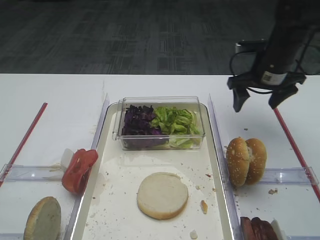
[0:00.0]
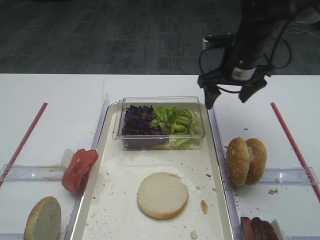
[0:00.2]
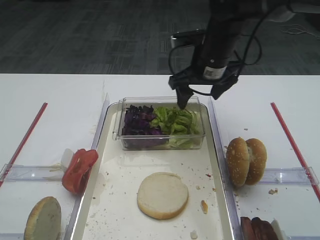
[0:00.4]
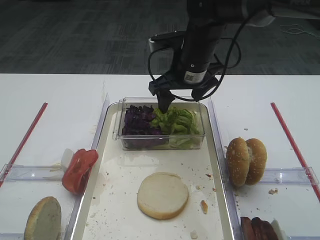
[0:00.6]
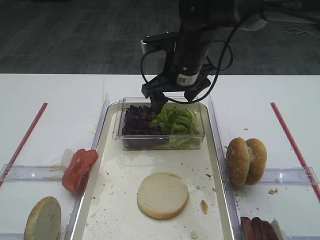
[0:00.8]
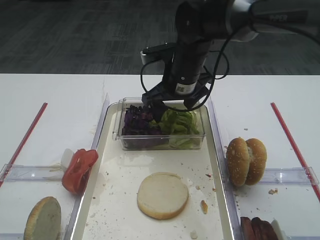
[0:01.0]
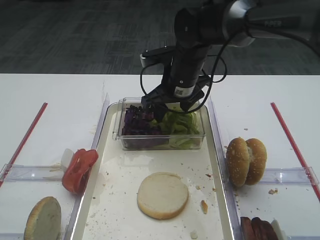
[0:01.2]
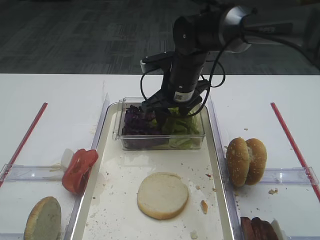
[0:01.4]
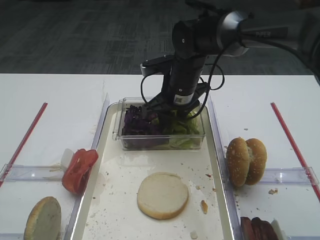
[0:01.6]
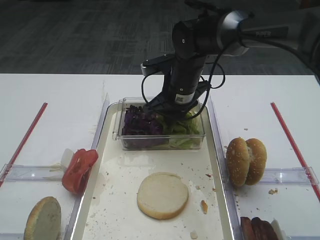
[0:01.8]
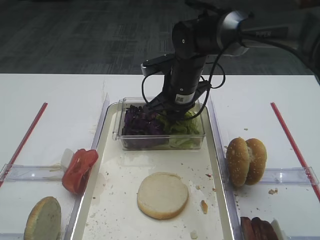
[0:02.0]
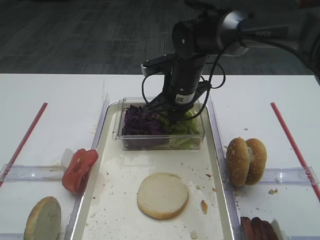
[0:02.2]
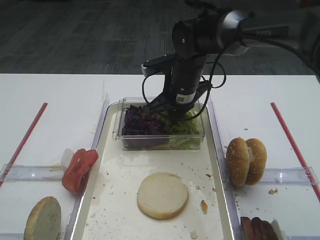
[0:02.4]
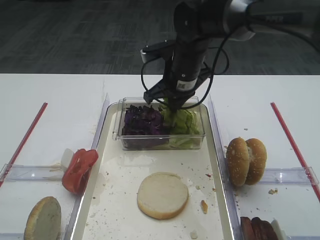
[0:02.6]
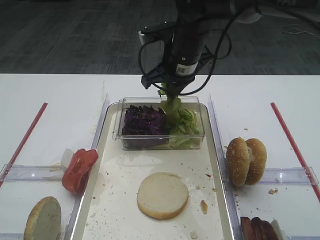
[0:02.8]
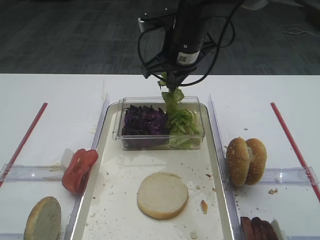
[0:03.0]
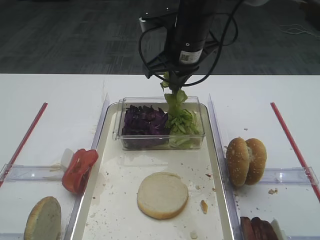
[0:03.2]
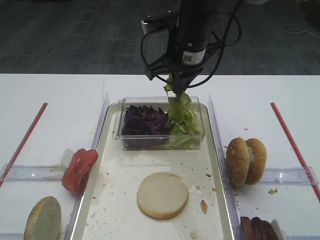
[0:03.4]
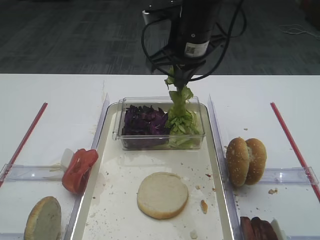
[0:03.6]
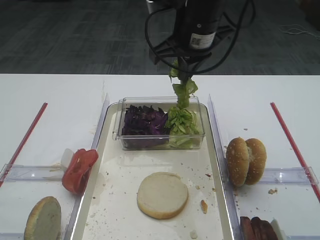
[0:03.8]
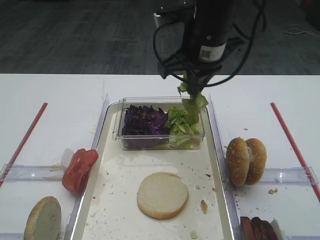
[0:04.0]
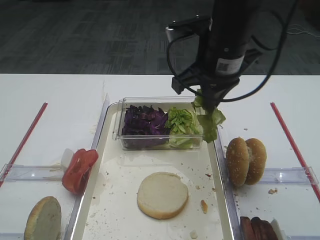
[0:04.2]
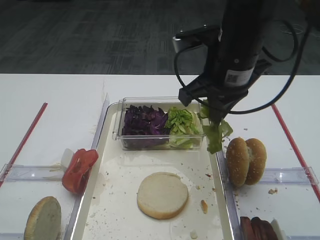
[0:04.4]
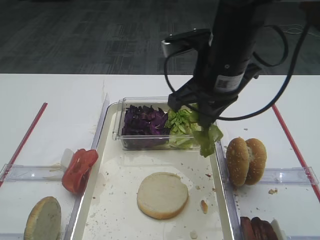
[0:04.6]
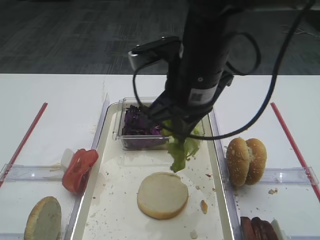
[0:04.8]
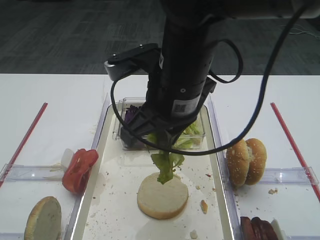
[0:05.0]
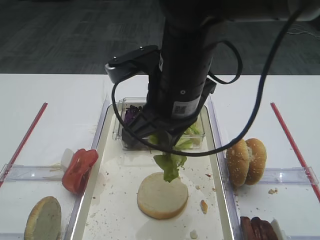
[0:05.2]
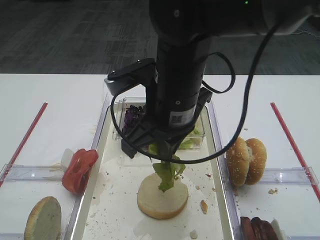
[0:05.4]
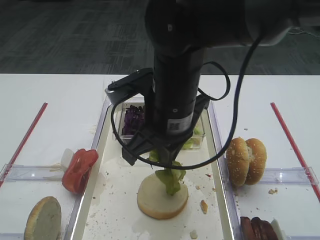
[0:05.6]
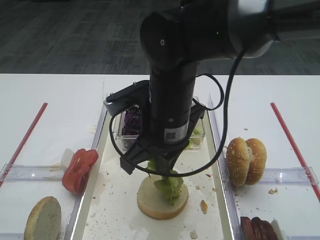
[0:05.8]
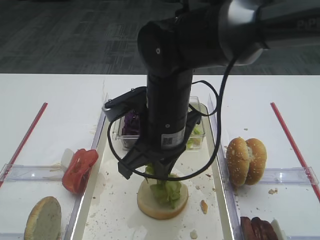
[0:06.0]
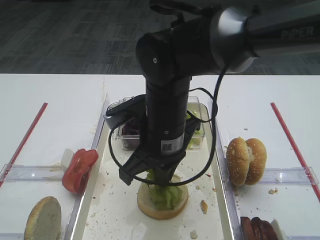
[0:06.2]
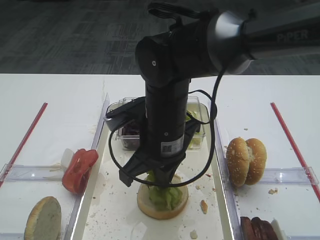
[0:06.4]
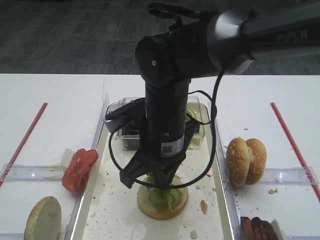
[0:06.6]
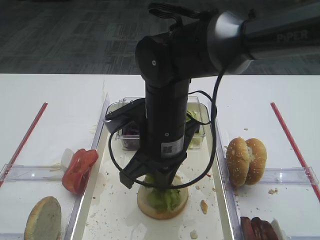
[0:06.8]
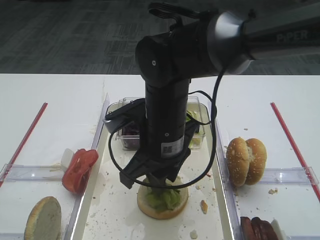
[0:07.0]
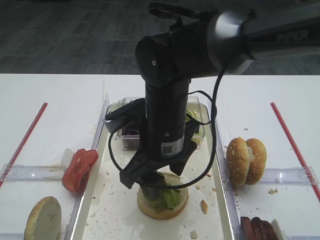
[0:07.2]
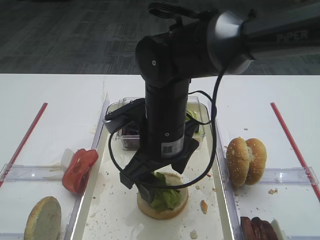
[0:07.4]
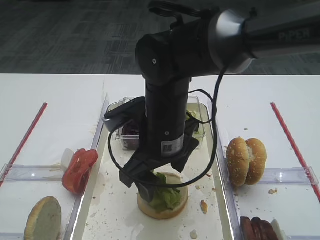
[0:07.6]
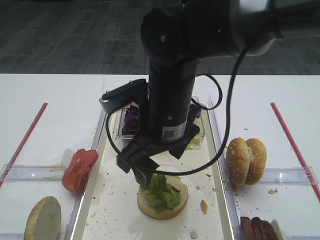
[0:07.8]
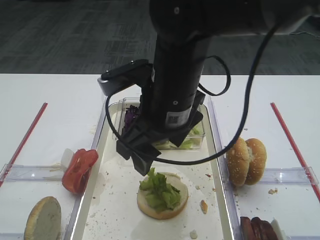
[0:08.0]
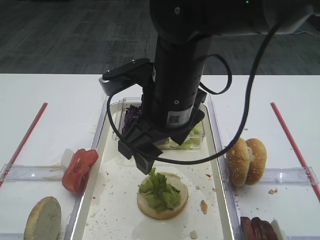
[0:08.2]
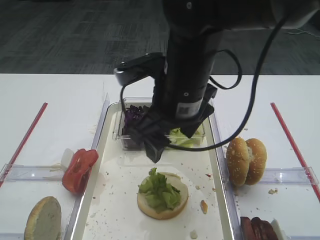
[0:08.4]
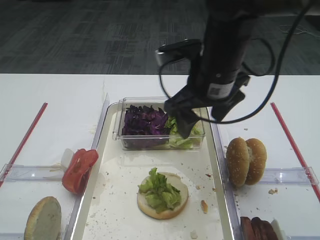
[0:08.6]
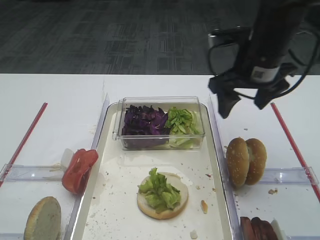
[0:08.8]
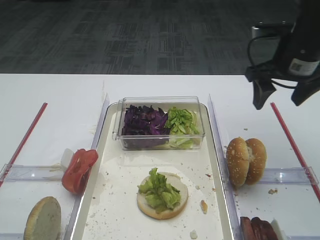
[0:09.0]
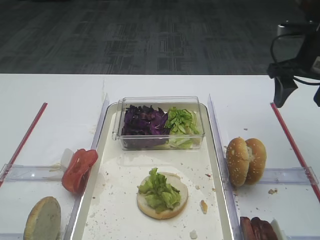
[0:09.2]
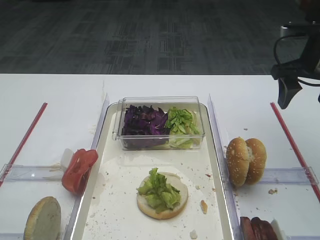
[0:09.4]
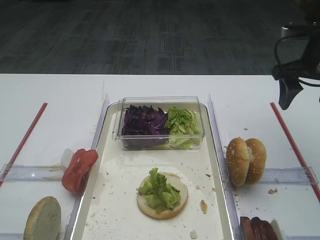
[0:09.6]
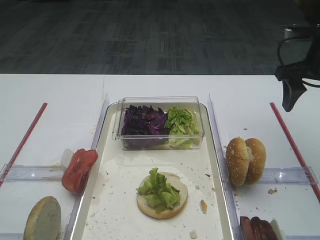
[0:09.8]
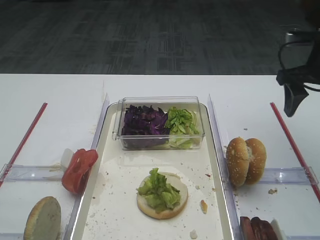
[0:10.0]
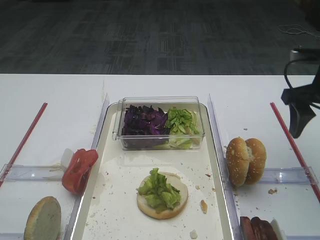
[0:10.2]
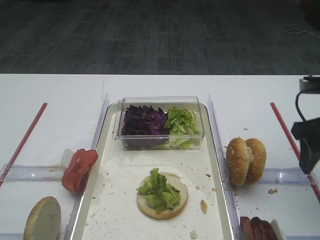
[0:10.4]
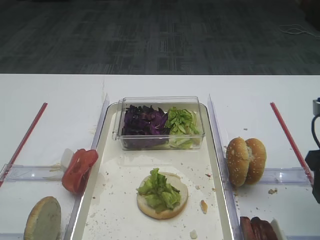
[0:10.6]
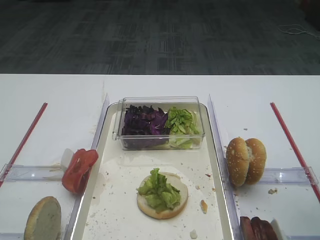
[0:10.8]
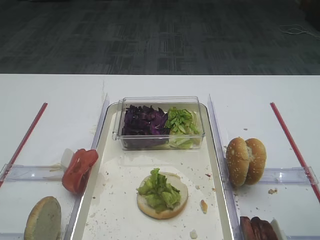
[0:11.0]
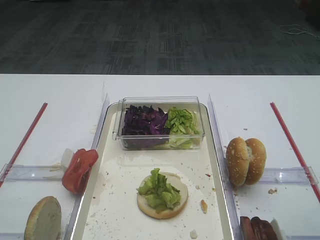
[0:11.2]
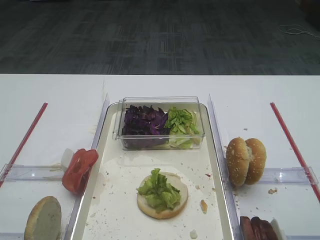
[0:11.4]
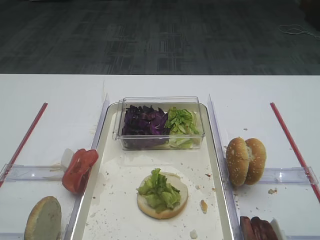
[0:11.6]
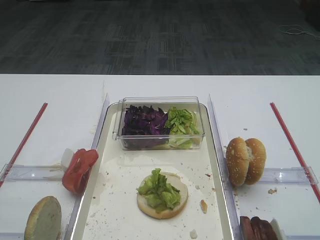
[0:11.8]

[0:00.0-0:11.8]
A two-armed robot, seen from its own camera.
Step, 0:00.0 to 0:03.4: Pick up the lettuce leaf with the right gripper.
Step, 0:03.6 to 0:08.2: Place the lettuce leaf on the bread slice with the right gripper.
0:00.0 to 0:01.4: The right gripper goes about 15 cm to the left.
0:01.4 to 0:03.0: The right gripper goes roughly 10 cm upward, and closes.
0:03.0 to 0:04.4: The right gripper is displaced backward and to the right by some 10 cm.
0:04.4 to 0:06.0: The right gripper goes about 10 cm to the left and downward.
0:06.0 to 0:07.4: The right gripper opens up.
0:07.4 to 0:08.8: The right gripper goes some 20 cm to the right, forward and upward.
0:08.8 to 0:10.4: The right gripper shifts about 15 cm to the right and backward.
0:10.4 to 0:11.8: The right gripper moves backward, about 20 cm.

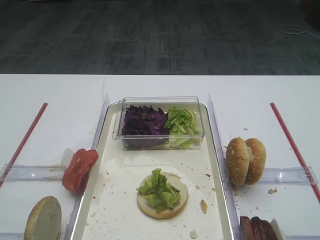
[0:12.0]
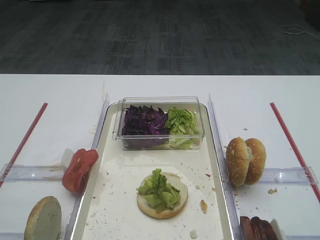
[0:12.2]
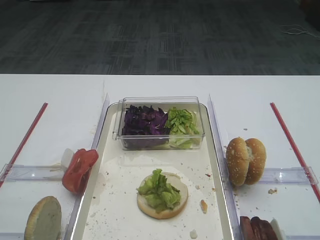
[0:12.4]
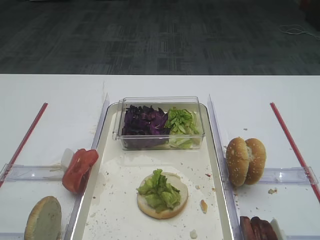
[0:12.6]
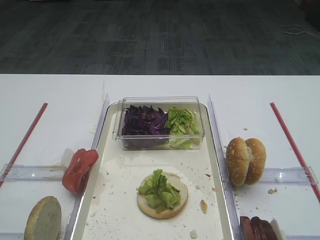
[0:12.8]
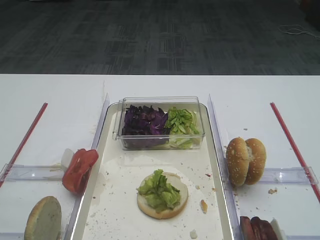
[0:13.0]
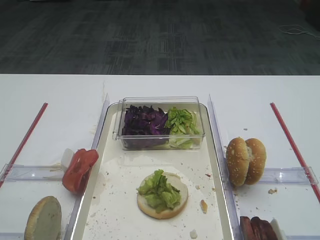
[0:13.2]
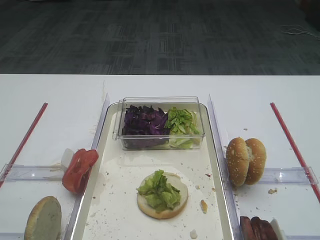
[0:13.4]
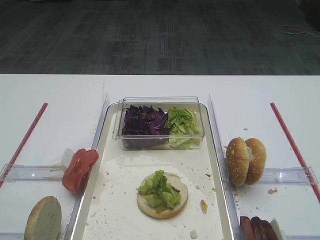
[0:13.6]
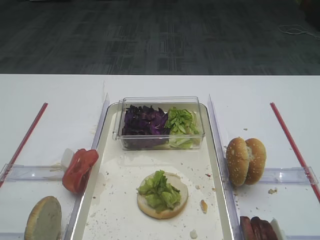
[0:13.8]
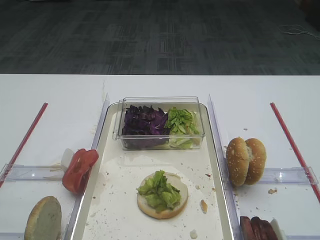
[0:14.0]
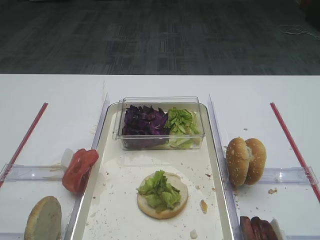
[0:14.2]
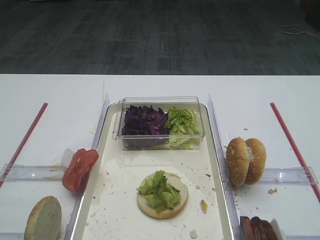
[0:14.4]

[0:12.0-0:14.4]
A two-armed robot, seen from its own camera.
0:13.2 to 0:14.4: Neither gripper changes place.

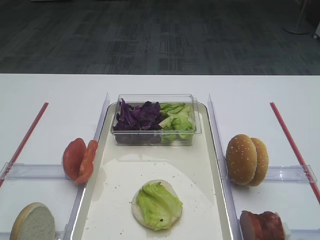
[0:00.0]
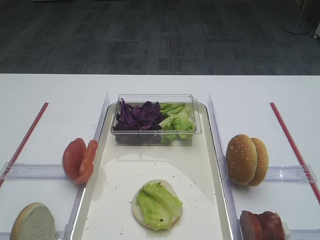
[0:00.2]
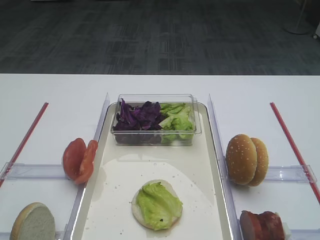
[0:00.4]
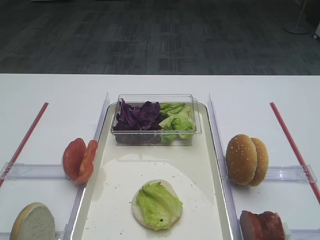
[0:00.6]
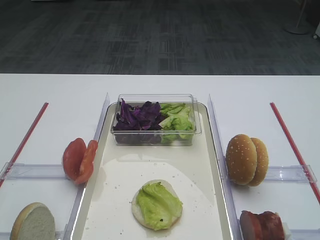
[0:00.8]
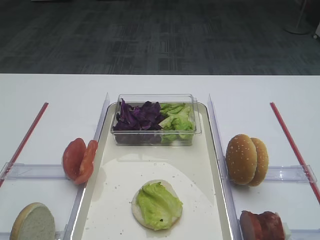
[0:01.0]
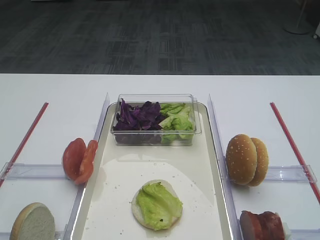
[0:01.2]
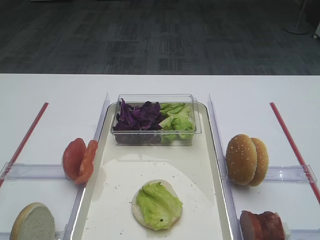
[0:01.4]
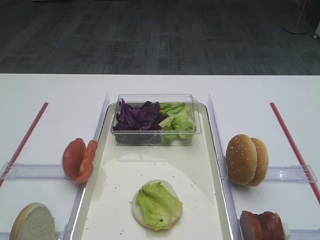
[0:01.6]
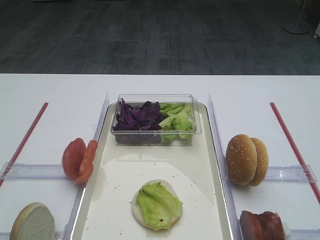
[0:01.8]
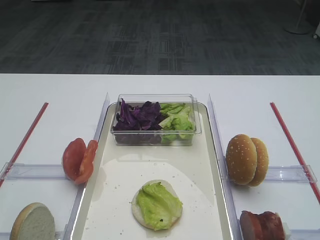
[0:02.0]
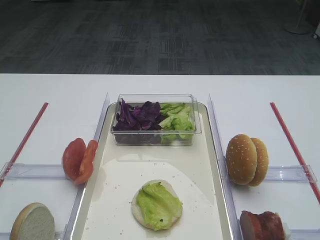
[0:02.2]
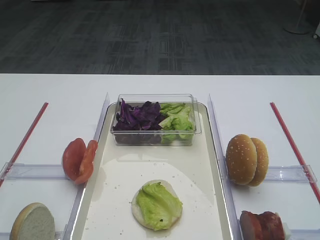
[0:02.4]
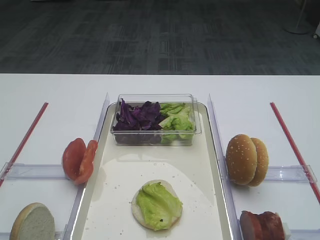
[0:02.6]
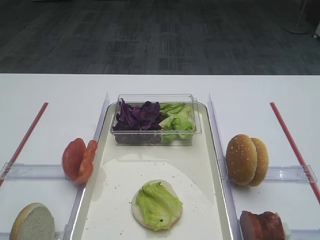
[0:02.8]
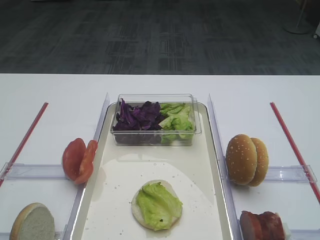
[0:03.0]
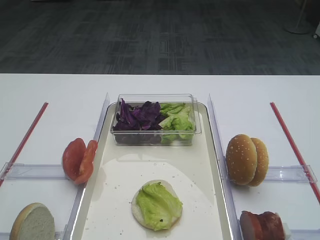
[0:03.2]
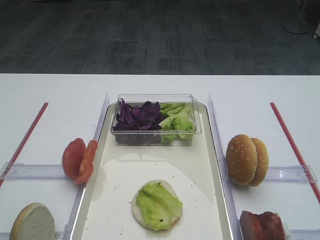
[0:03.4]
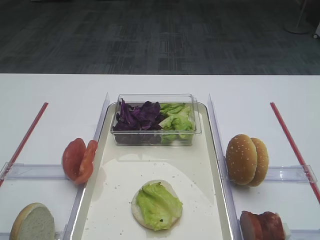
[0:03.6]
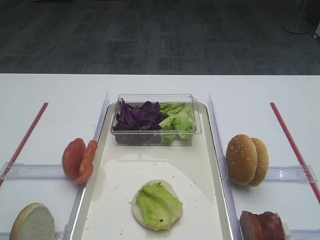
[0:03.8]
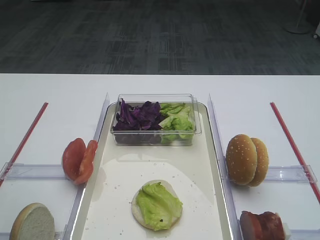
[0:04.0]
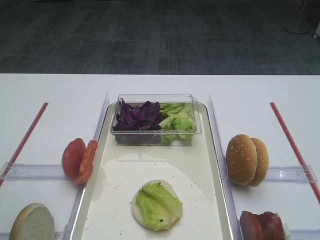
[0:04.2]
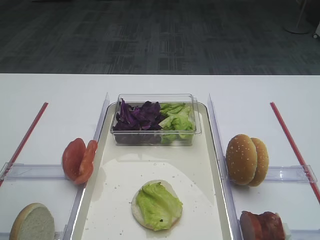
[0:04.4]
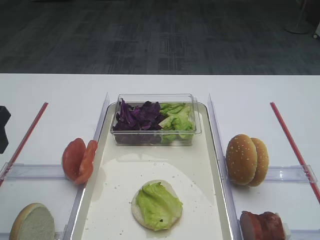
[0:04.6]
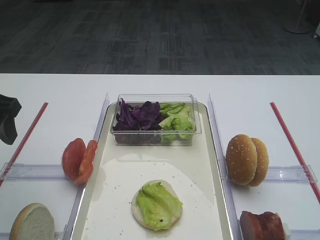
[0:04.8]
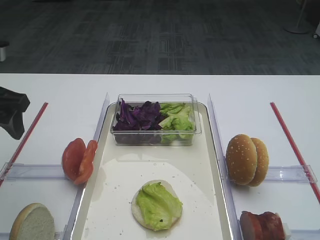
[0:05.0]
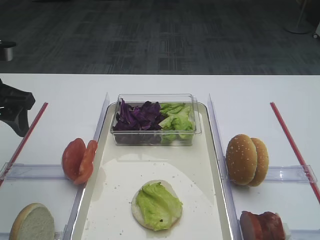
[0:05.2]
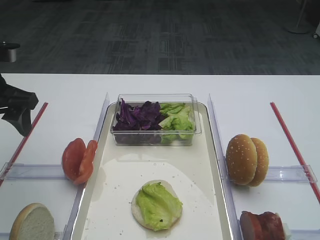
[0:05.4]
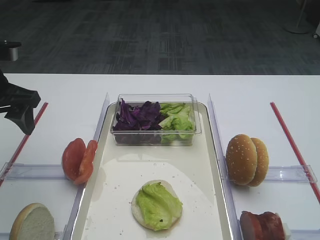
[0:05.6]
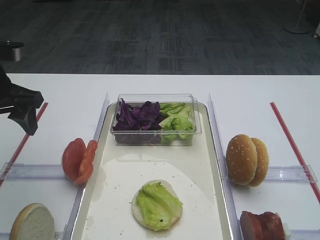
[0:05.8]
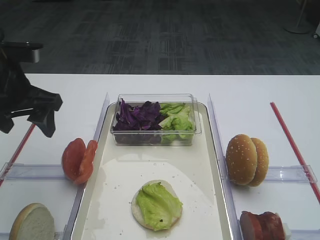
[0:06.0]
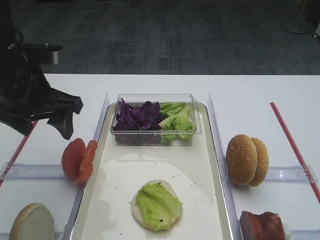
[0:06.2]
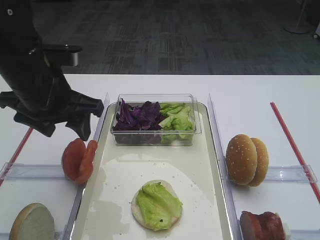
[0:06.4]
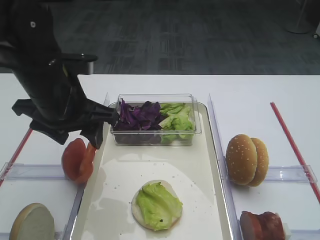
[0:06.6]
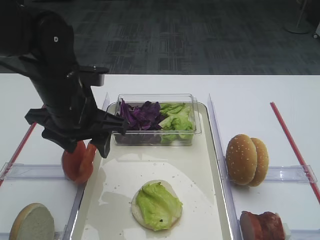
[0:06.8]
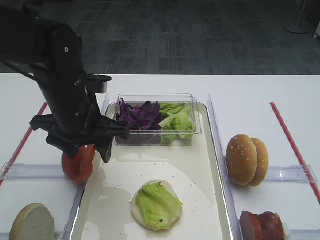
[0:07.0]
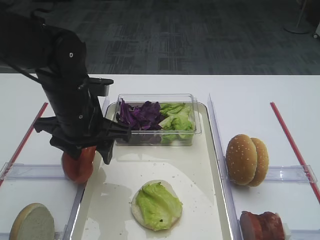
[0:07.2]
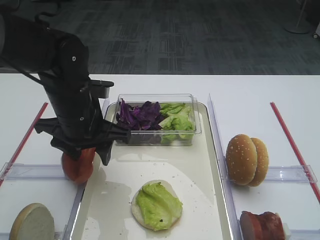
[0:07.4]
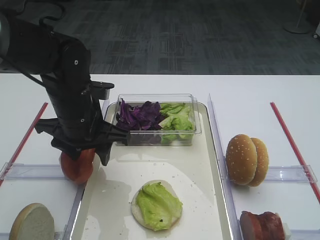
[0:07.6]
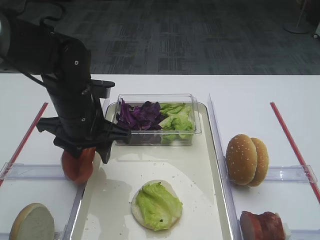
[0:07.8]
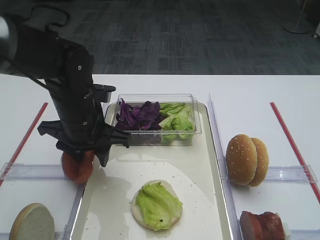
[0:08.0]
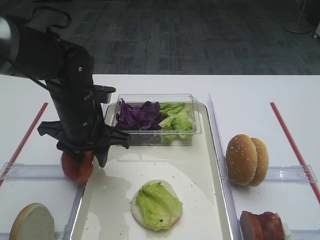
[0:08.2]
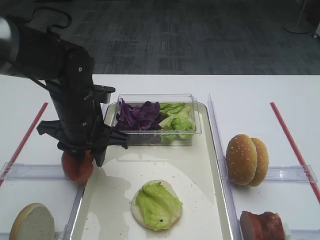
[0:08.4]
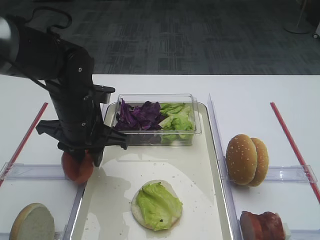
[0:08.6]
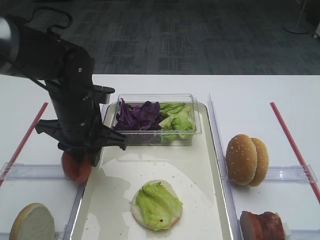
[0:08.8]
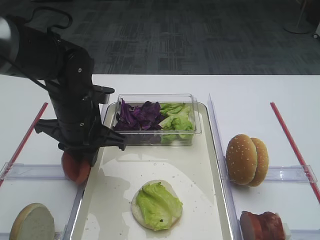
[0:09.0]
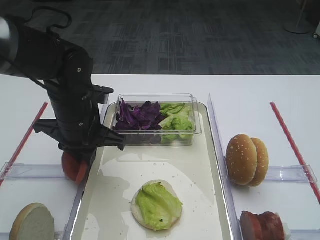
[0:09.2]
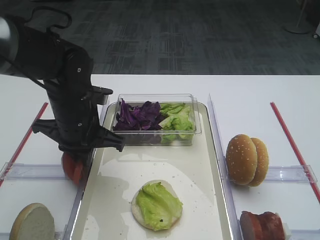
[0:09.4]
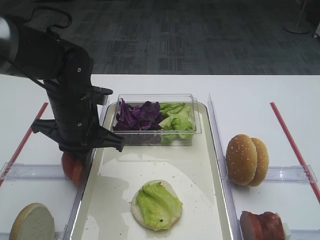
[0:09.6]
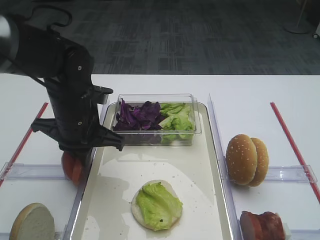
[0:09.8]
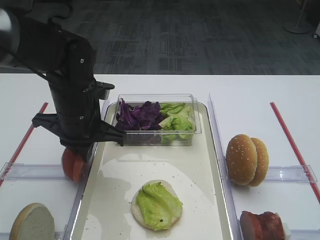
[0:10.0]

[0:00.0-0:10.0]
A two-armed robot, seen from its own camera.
0:04.2 to 0:05.8: The left gripper travels forward by some 10 cm.
0:05.8 to 0:07.2: The left gripper goes roughly 15 cm to the right and downward.
0:07.2 to 0:08.6: The grippers stay close to where they were, moving slightly.
0:08.6 to 0:10.0: The left gripper closes its fingers.
